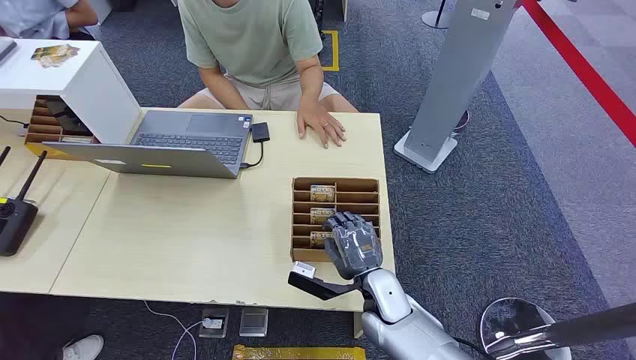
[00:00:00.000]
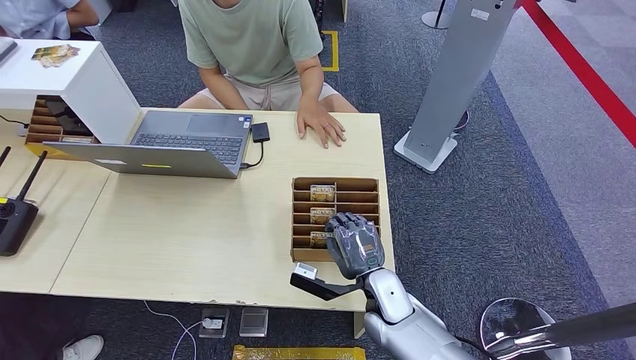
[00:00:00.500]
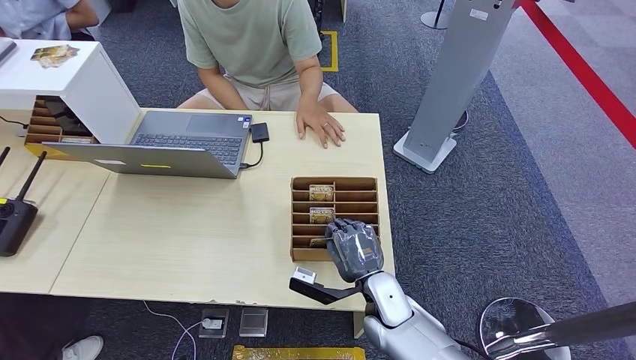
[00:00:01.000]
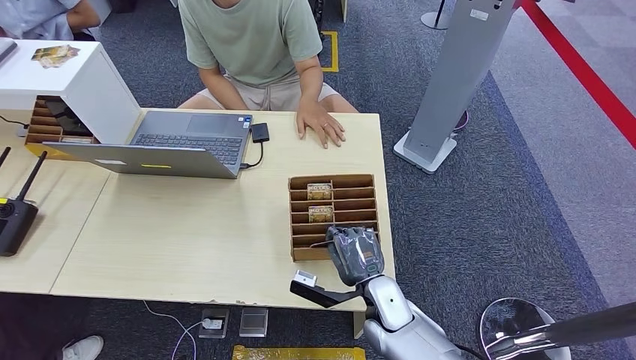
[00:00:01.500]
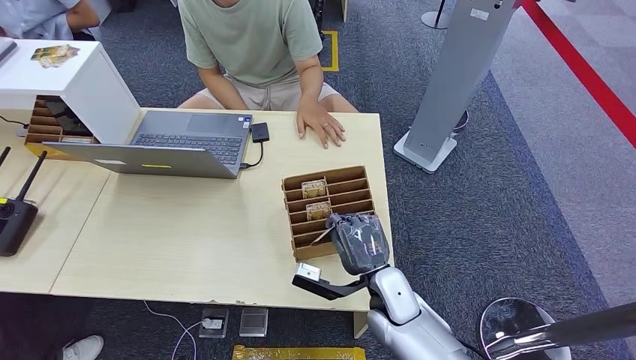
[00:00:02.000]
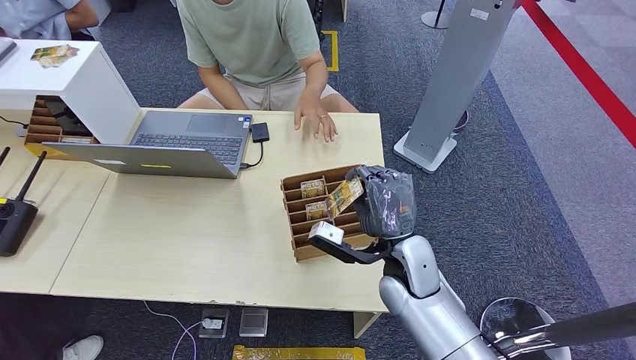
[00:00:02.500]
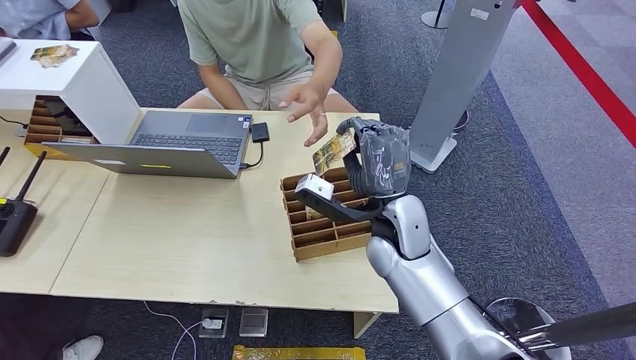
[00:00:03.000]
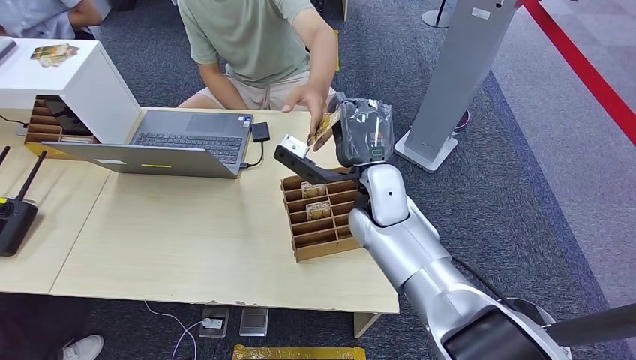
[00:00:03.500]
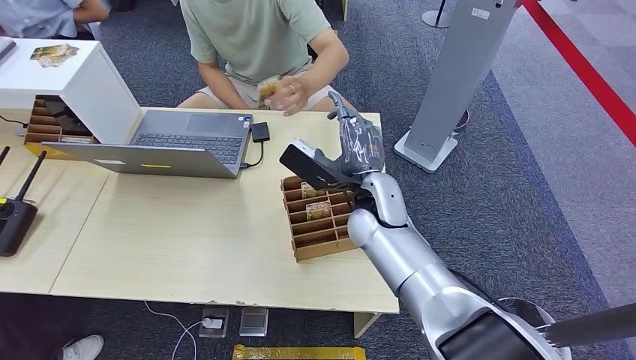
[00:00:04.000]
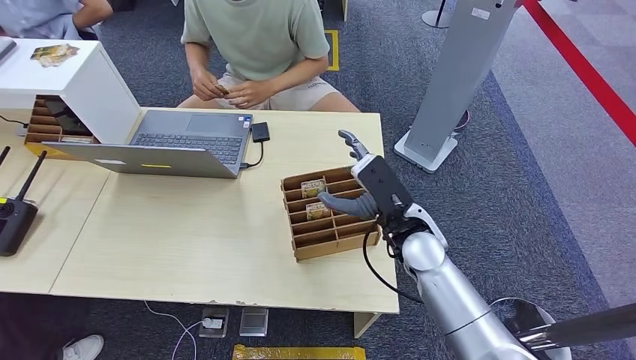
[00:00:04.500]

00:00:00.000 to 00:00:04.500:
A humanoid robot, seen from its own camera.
Step, 00:00:00.000 to 00:00:02.000: Pick up the room card from the card holder.
Step, 00:00:03.500 to 00:00:04.000: Hand the room card to the target.
00:00:02.000 to 00:00:04.500: The right hand goes some 15 cm upward and forward.

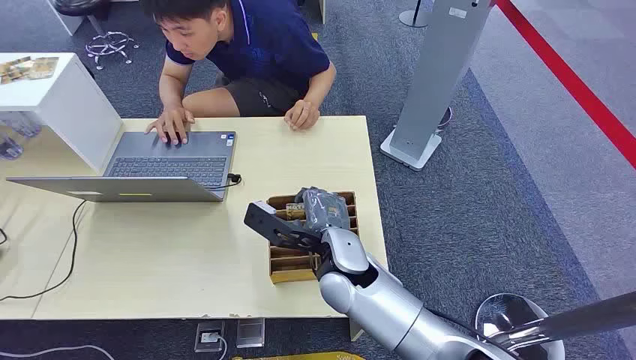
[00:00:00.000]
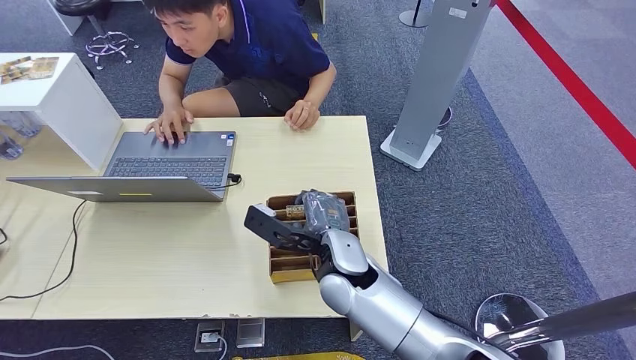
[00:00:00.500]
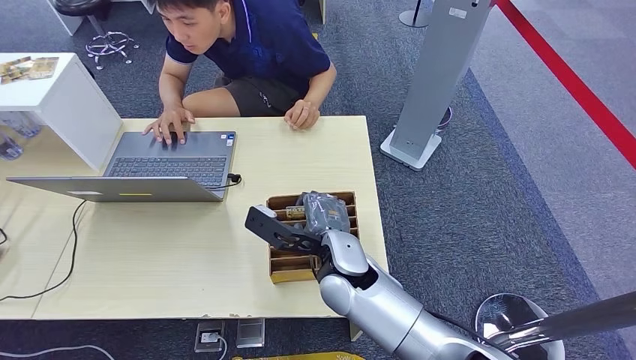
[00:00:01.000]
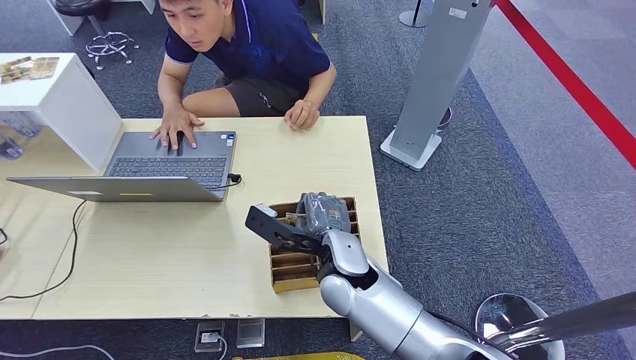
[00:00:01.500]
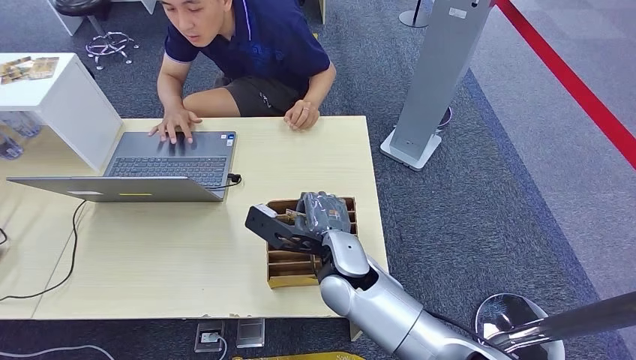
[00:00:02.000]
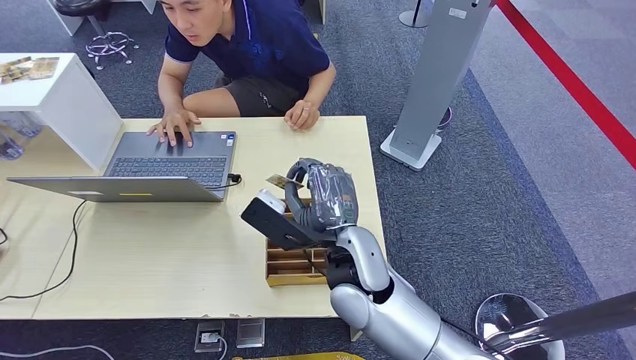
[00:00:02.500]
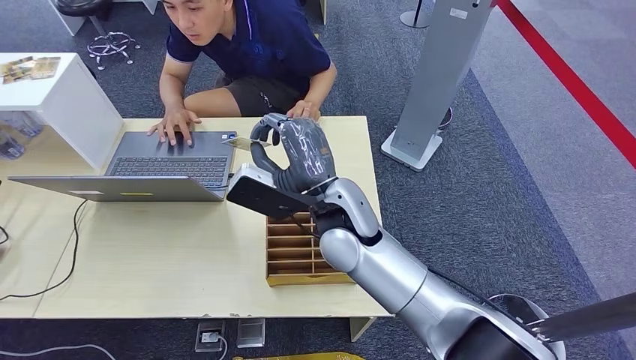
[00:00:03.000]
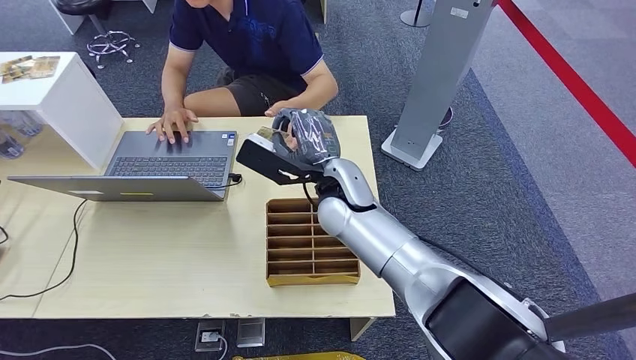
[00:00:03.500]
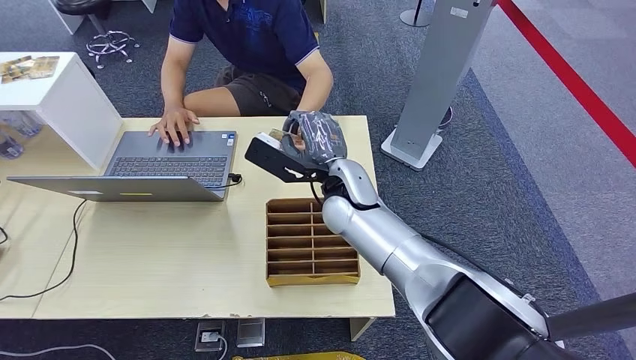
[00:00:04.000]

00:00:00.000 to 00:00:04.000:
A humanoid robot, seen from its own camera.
Step, 00:00:00.000 to 00:00:02.000: Pick up the room card from the card holder.
Step, 00:00:03.000 to 00:00:04.000: Hand the room card to the target.
00:00:02.000 to 00:00:04.000: The right hand is displaced forward and upward by some 10 cm.
